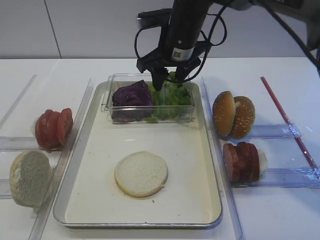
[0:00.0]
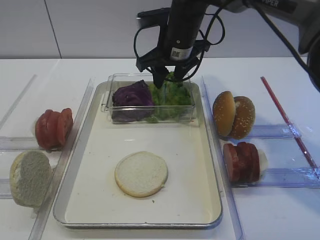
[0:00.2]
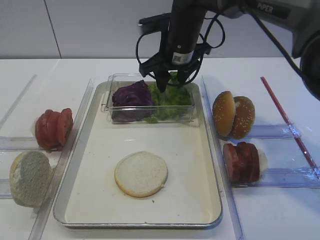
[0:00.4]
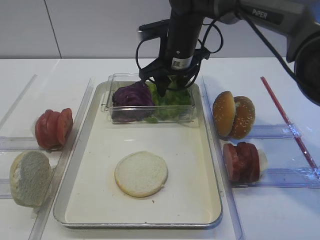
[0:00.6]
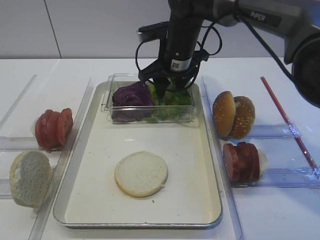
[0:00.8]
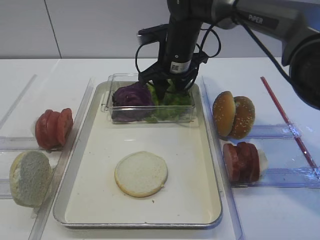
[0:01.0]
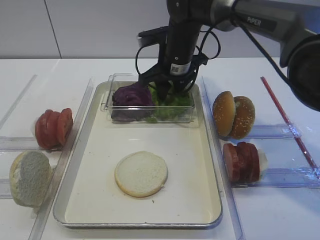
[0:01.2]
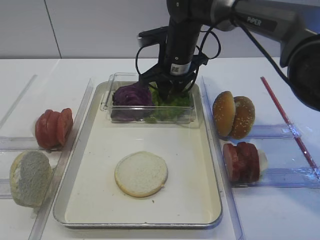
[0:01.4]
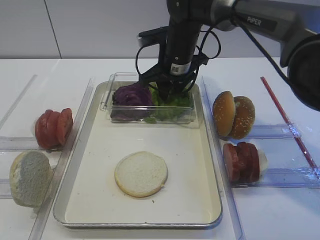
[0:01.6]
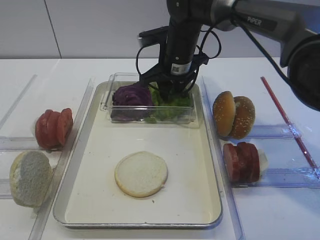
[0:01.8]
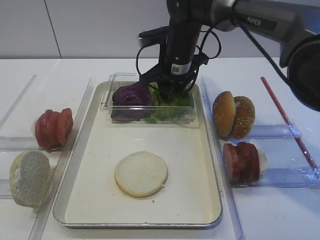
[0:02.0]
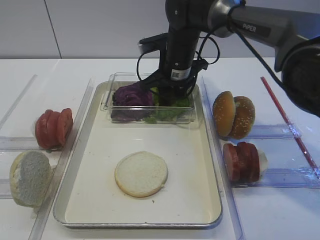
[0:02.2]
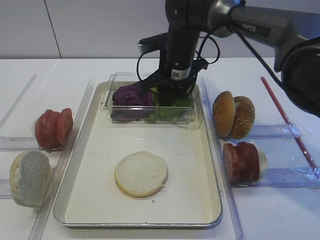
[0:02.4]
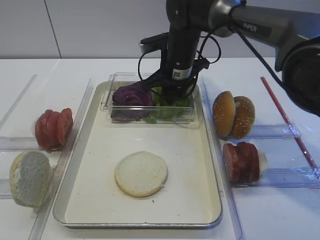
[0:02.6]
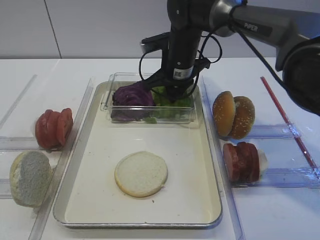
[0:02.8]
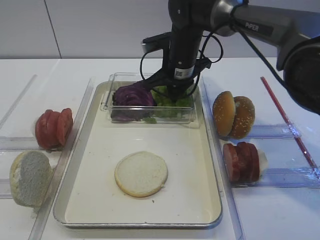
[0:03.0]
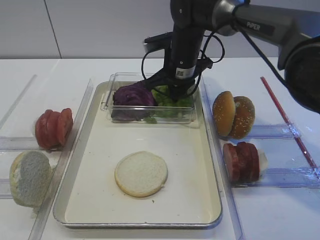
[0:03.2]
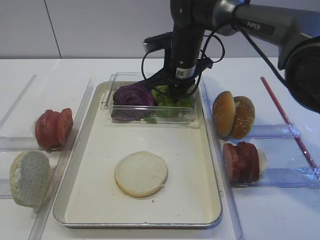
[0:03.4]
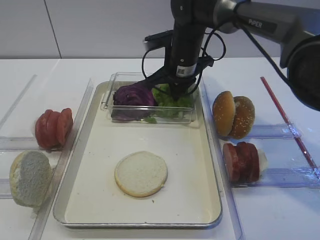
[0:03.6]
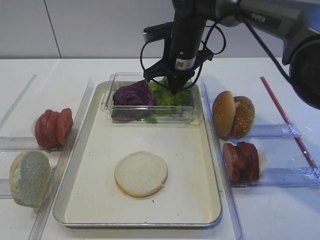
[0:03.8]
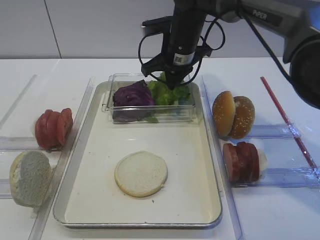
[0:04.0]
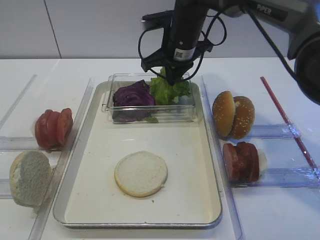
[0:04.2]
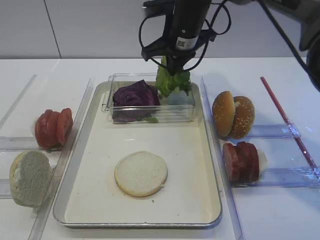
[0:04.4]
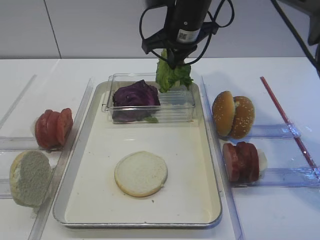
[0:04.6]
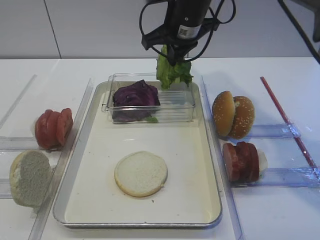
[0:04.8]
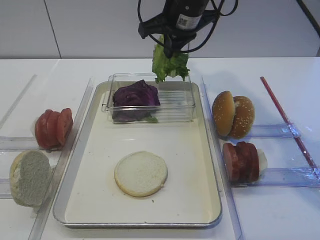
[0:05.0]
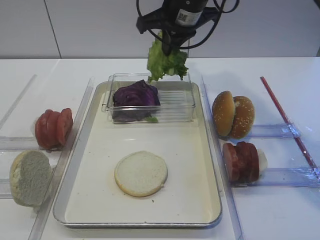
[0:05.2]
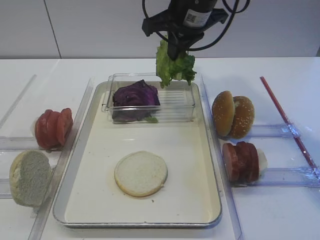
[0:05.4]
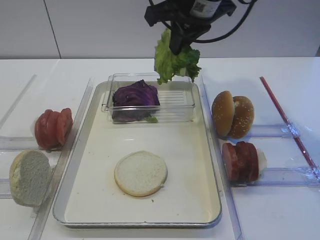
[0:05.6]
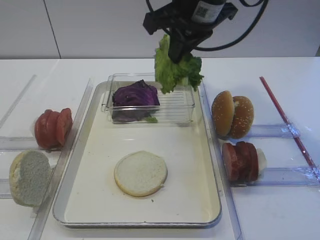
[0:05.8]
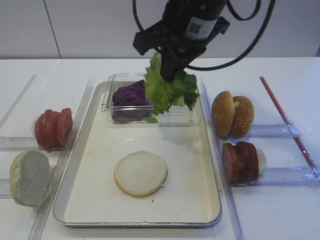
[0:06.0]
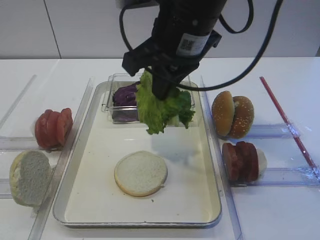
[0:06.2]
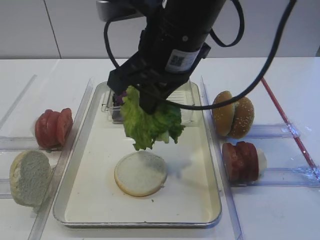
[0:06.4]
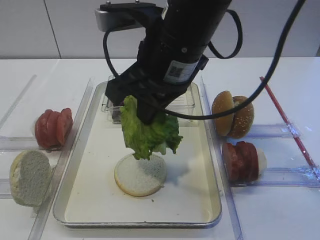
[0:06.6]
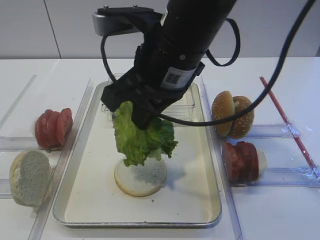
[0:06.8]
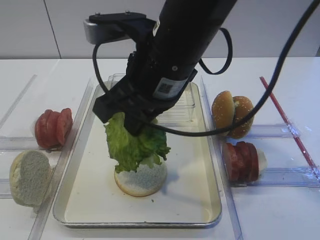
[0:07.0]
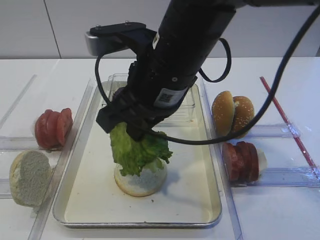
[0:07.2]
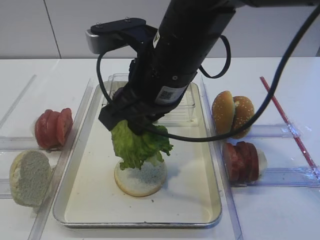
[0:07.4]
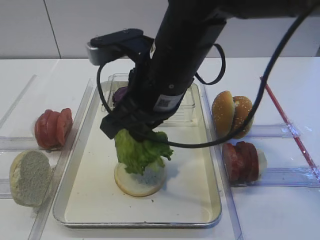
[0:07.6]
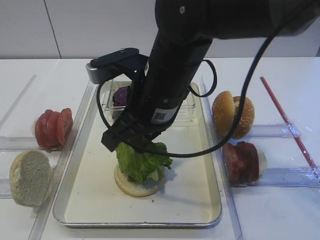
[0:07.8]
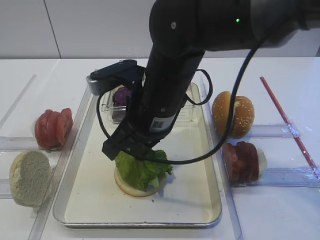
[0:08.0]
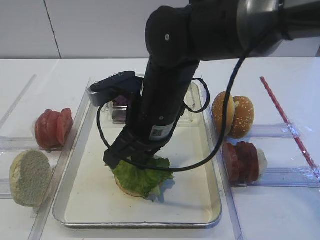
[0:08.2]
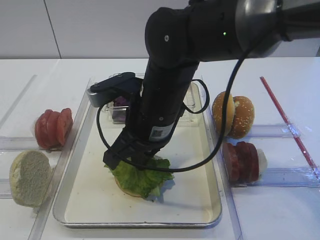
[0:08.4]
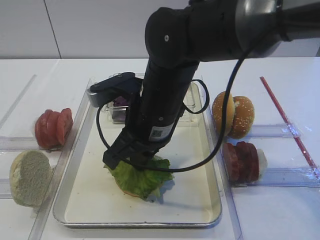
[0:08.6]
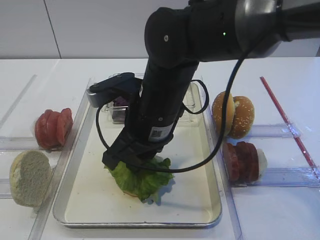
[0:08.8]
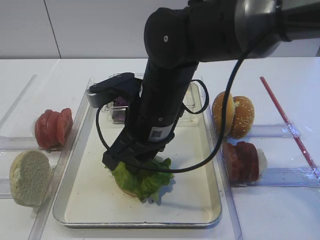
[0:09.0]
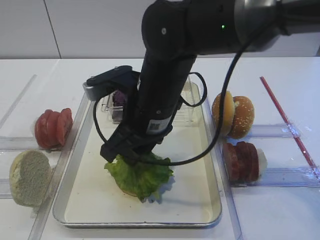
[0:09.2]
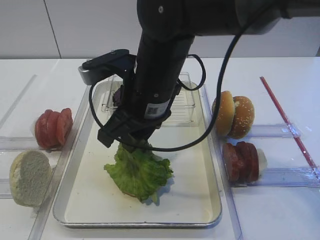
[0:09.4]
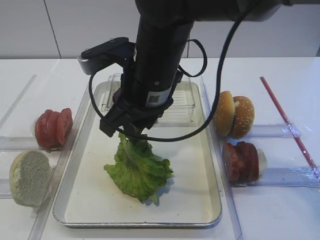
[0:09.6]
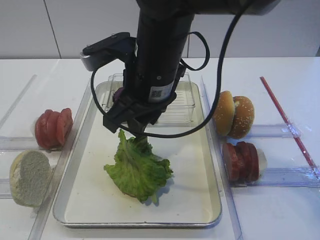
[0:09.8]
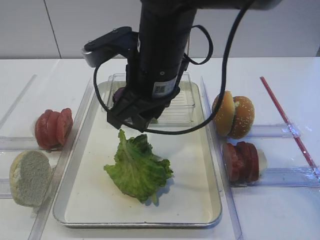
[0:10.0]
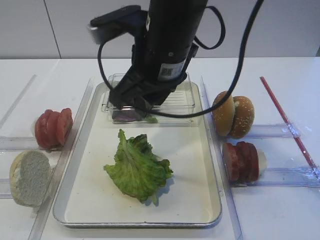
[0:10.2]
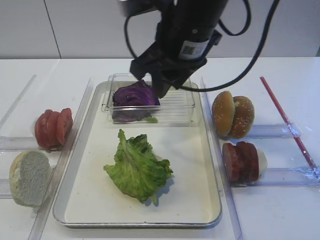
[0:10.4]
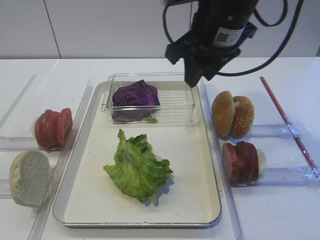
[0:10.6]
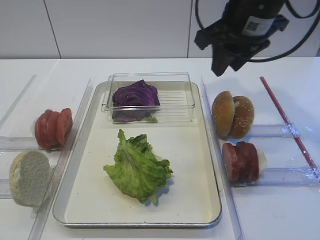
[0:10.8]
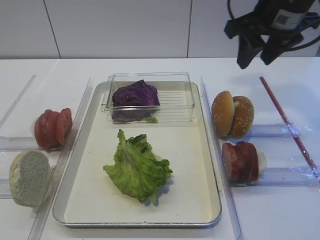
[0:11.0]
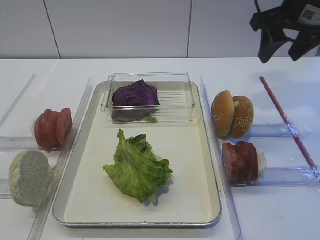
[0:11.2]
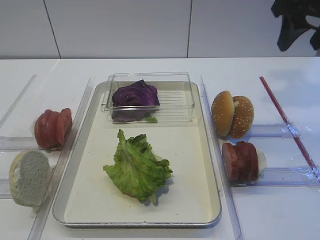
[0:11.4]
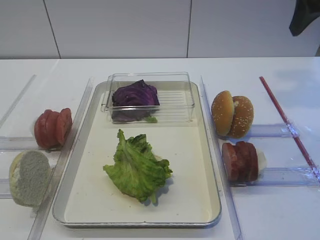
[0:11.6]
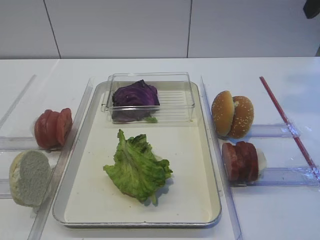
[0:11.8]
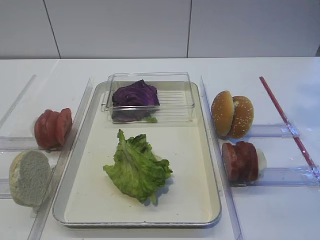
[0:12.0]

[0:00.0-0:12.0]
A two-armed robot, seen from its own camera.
Step, 0:00.0 to 0:04.4: Pick up the lettuce leaf with the right gripper.
Step, 0:04.8 to 0:09.6: Place the lettuce leaf on the bread slice with the right gripper.
0:00.0 to 0:01.6: The grippers stay close to where they were, moving slightly.
0:01.6 to 0:03.0: The right gripper closes its fingers.
0:03.0 to 0:04.4: The right gripper heads upward, covering roughly 5 cm.
0:04.4 to 0:06.0: The right gripper shifts about 15 cm backward and upward.
0:06.0 to 0:07.6: The right gripper heads downward and backward, covering about 10 cm.
0:07.6 to 0:09.0: The right gripper is displaced downward by about 5 cm, and opens its fingers.
0:09.0 to 0:10.4: The right gripper is displaced upward and to the right by approximately 10 cm.
0:10.4 to 0:12.0: The right gripper shifts some 25 cm to the right and upward.

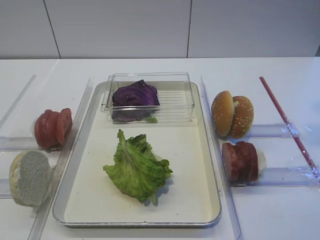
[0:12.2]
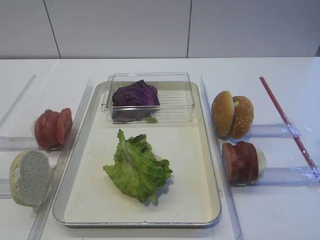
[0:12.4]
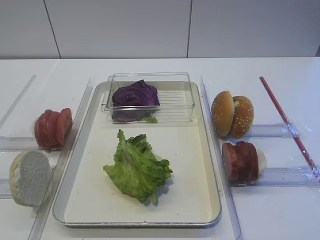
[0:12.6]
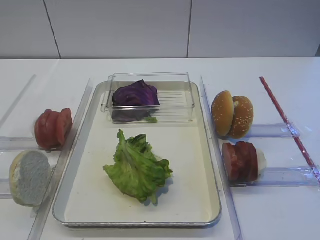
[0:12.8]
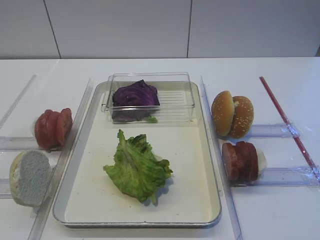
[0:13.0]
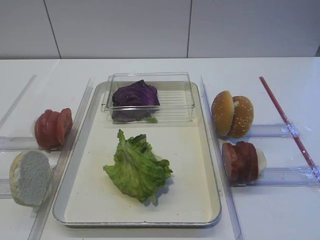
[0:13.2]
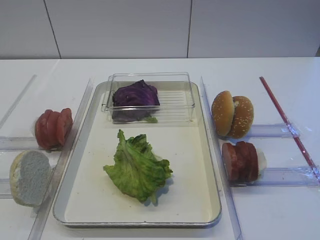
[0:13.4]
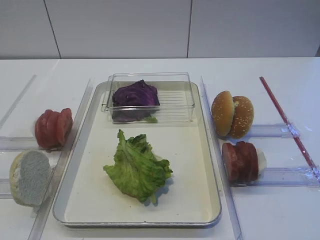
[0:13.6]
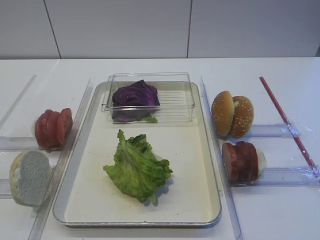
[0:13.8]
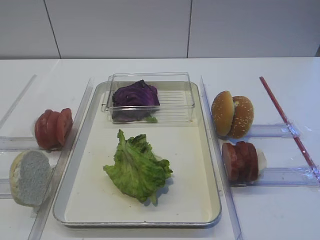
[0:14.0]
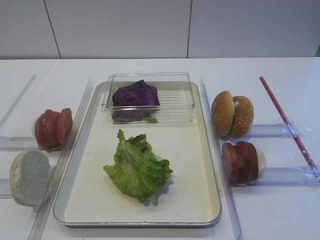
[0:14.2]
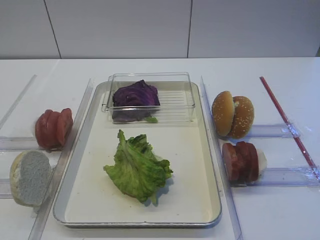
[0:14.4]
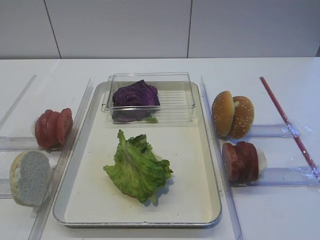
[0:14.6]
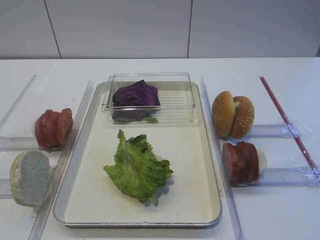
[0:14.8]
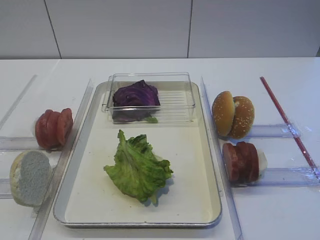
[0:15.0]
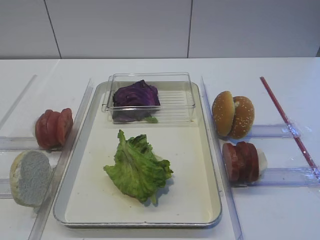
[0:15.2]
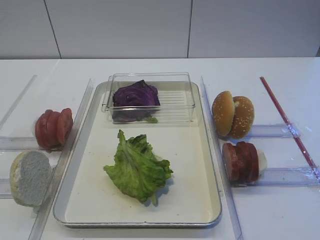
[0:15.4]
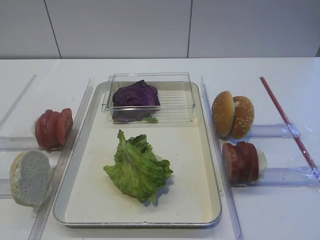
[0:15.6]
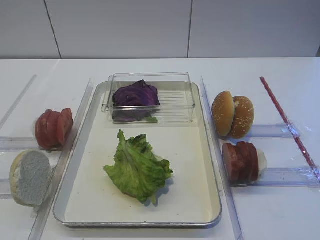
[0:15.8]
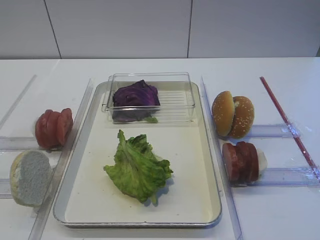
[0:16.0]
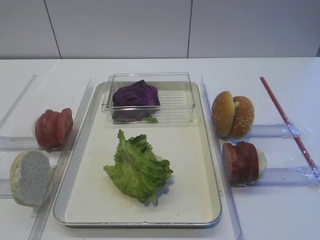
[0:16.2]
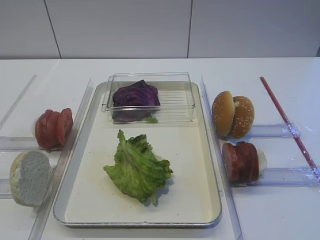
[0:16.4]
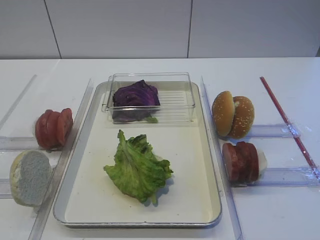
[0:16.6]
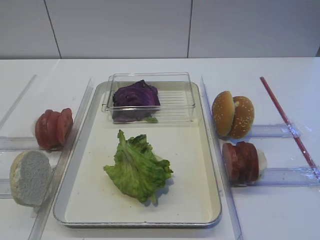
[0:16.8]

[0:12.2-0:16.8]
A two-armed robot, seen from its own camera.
0:15.2 to 0:16.8: The two grippers keep their place.

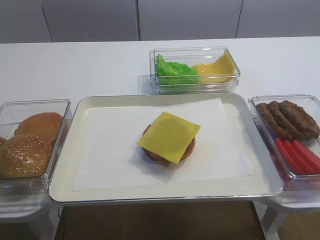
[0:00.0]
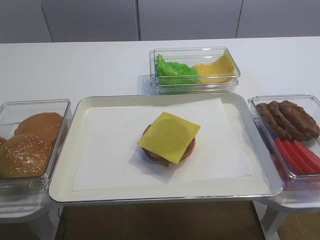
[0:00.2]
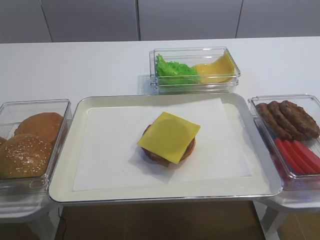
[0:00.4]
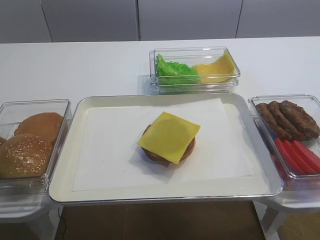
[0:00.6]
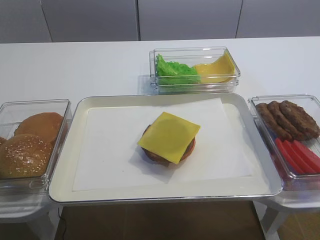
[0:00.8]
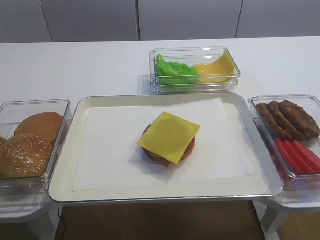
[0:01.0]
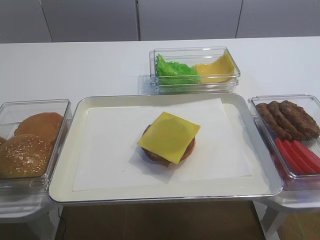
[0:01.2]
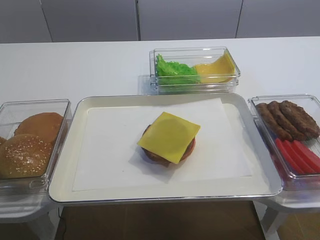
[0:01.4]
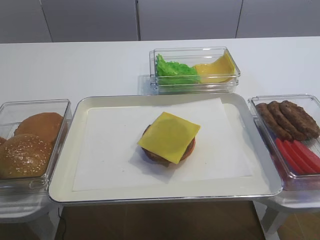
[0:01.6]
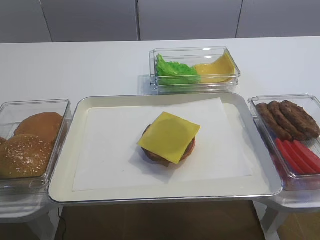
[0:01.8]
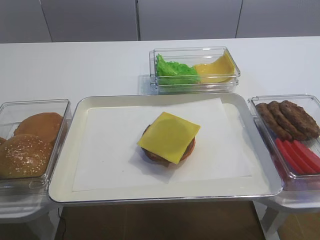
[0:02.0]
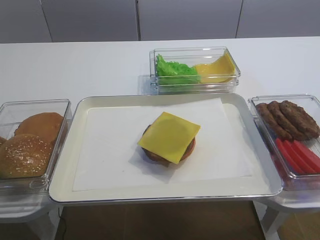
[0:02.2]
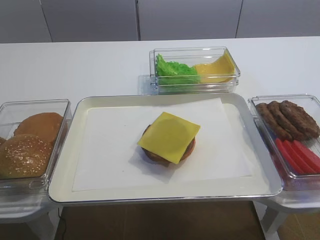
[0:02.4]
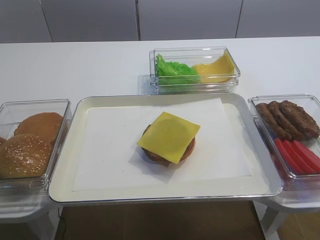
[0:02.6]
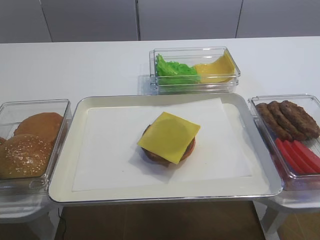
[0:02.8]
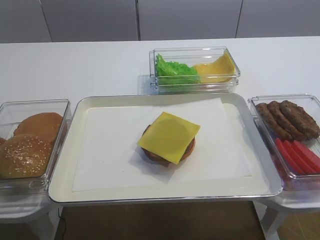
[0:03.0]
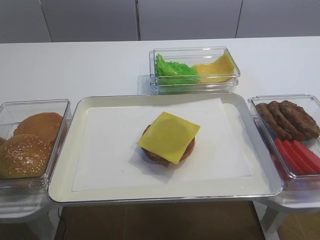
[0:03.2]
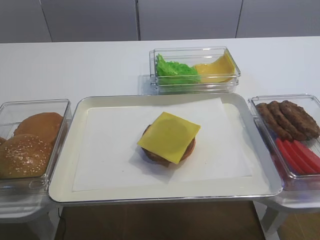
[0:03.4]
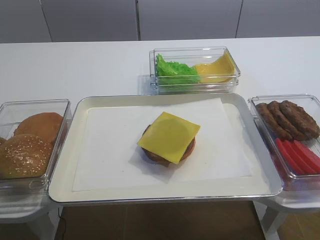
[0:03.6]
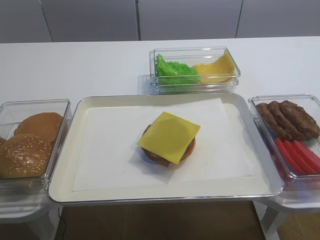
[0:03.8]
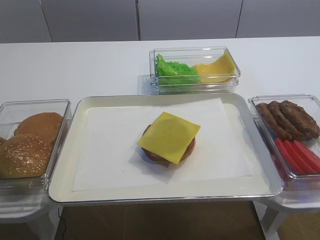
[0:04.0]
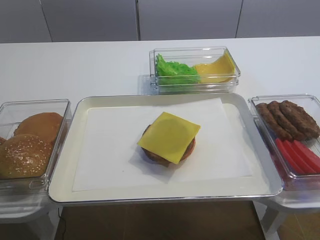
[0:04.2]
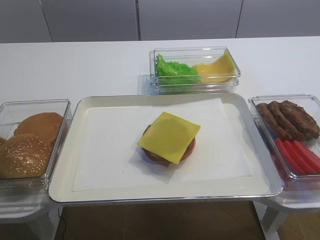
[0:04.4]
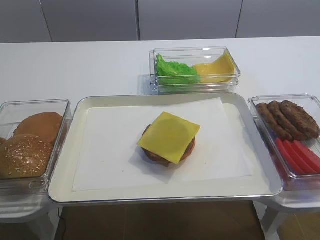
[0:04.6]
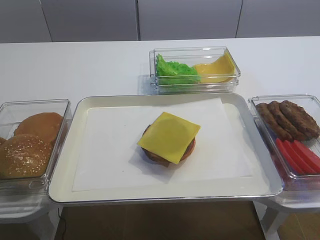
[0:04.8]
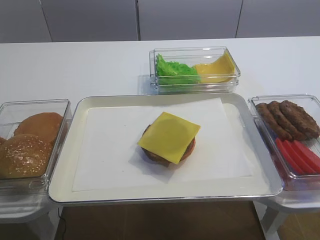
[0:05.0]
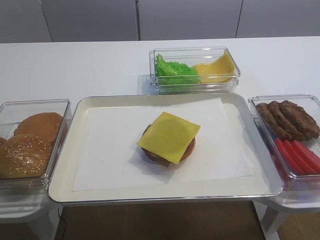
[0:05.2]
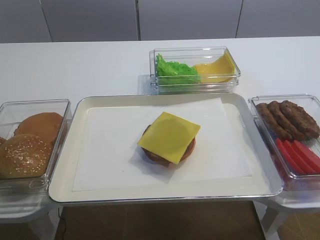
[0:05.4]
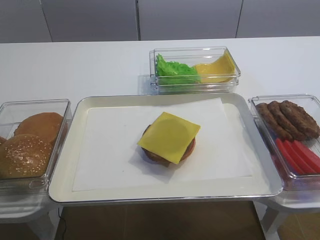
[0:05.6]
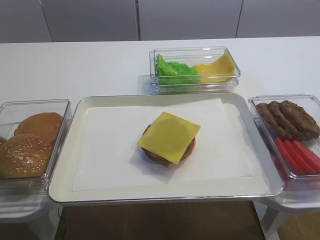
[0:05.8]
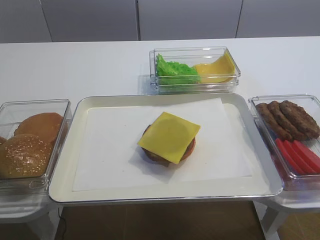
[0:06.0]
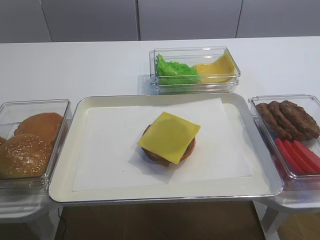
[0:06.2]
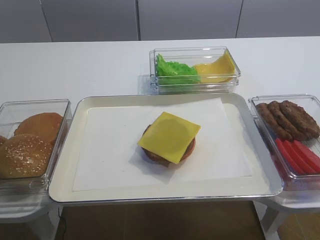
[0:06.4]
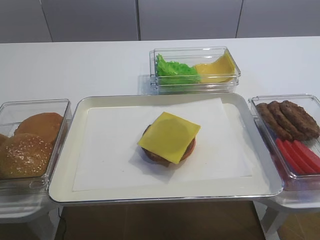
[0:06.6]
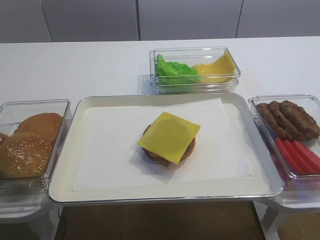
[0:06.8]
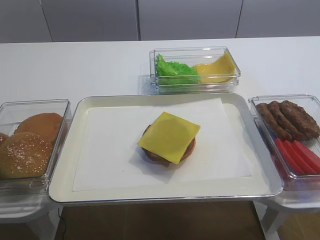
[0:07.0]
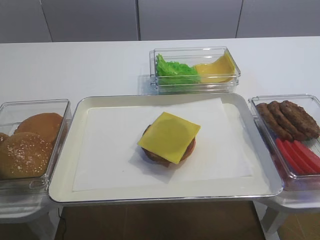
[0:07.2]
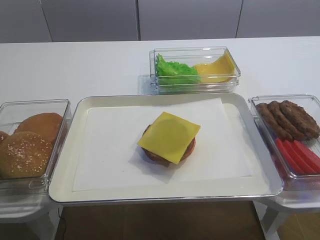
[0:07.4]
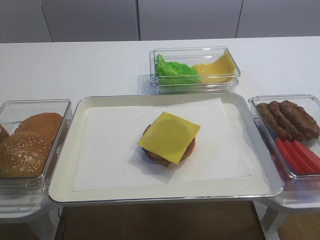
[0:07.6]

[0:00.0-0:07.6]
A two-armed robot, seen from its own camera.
0:06.0 to 0:07.6: The left gripper closes its fingers.
